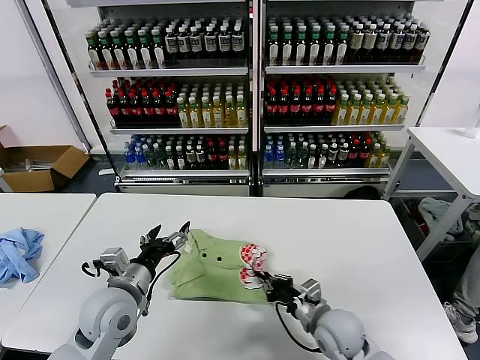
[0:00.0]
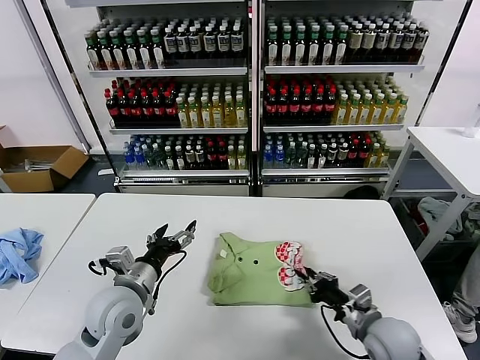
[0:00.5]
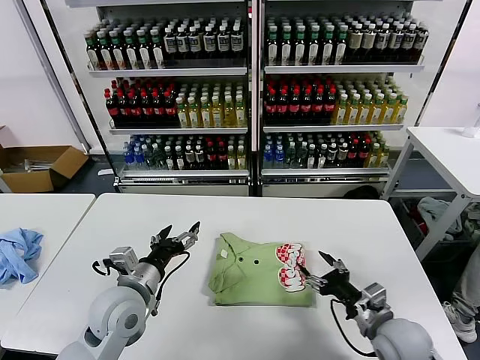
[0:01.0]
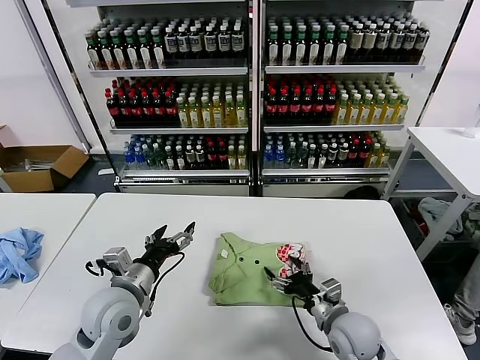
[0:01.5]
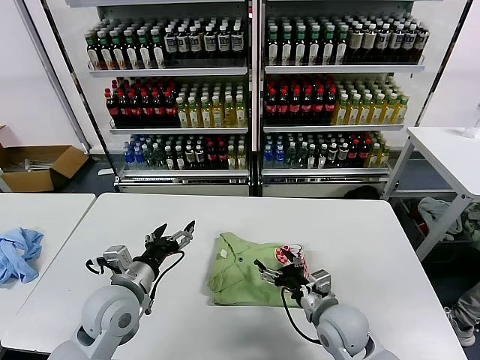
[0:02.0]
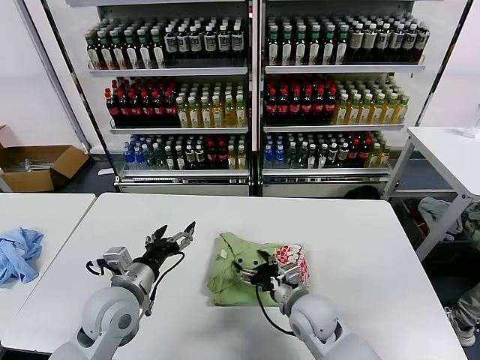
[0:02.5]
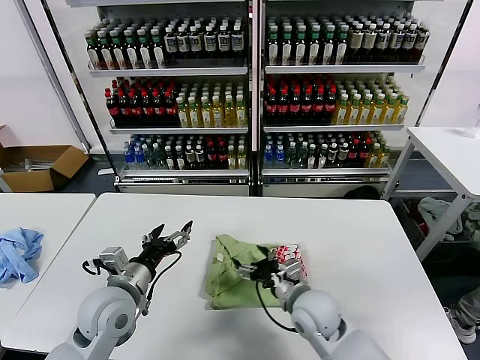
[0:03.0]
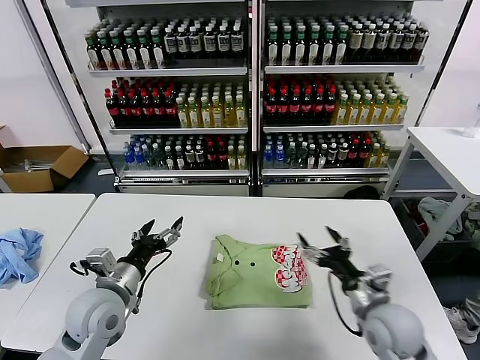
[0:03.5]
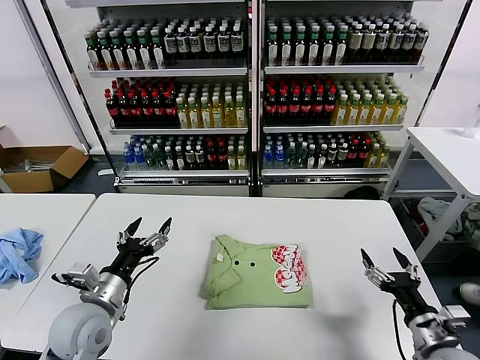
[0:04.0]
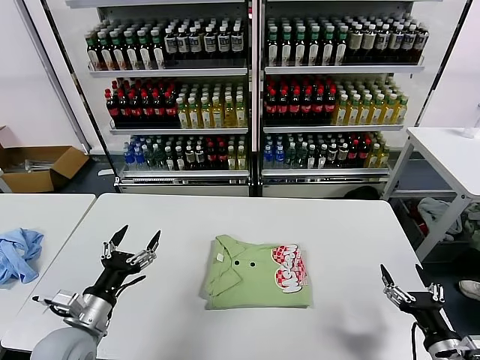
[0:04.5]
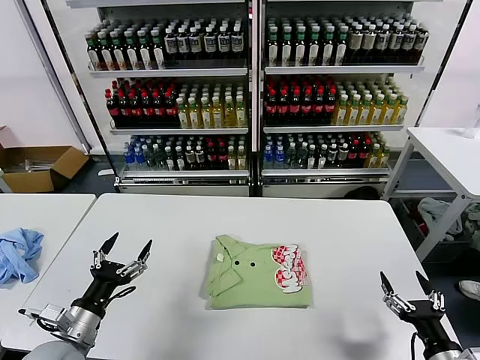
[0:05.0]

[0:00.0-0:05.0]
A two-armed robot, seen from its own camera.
Task of the whole recording: fold and organize the clothes.
Step, 0:00.0 to 0:03.0: Drag the clothes to the center of the table.
0:00.0 to 0:02.5: The right gripper moves some 10 cm to the right and comes back, and opens its fingers.
0:02.5 to 0:05.0: The left gripper moves to the left and backward, roughly 15 cm. Meanwhile the right gripper moves to the right and backward, roughly 30 cm.
